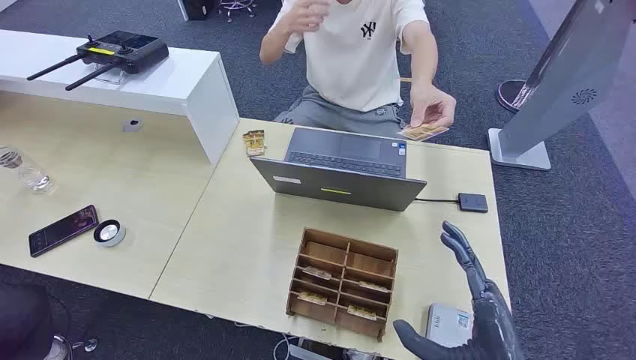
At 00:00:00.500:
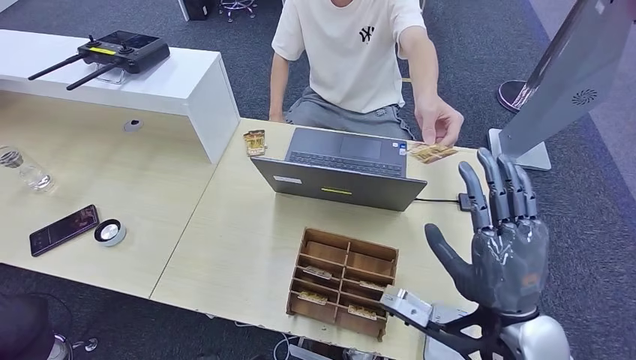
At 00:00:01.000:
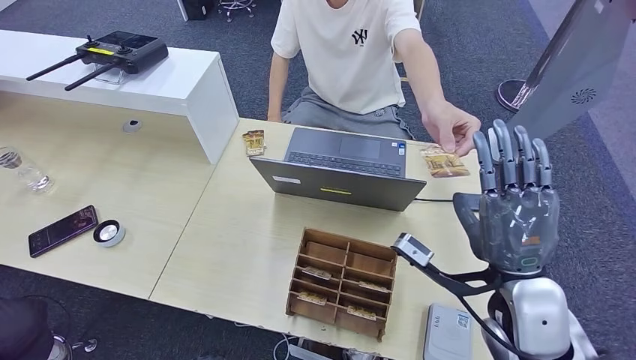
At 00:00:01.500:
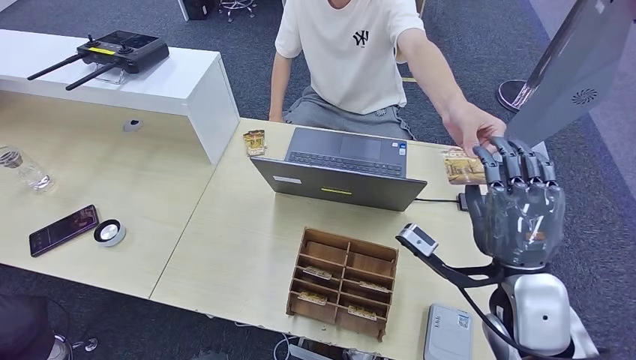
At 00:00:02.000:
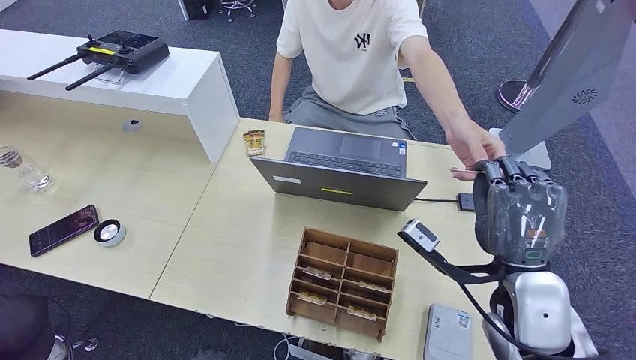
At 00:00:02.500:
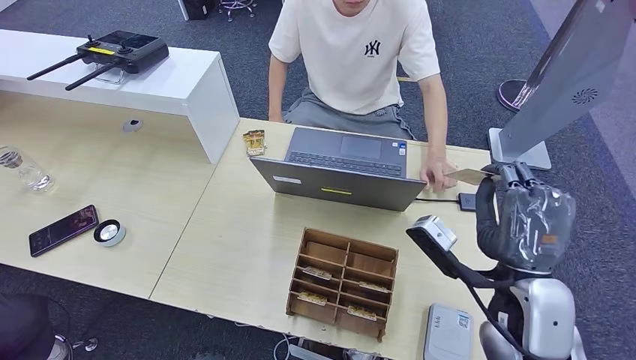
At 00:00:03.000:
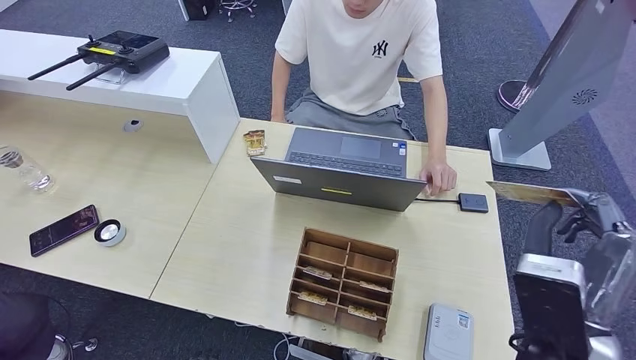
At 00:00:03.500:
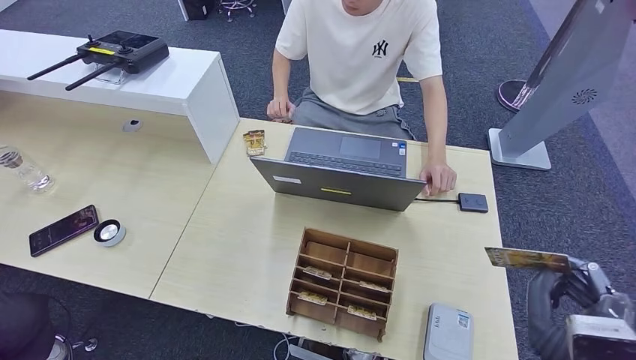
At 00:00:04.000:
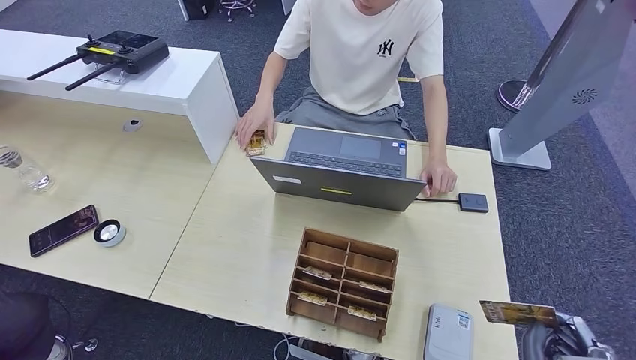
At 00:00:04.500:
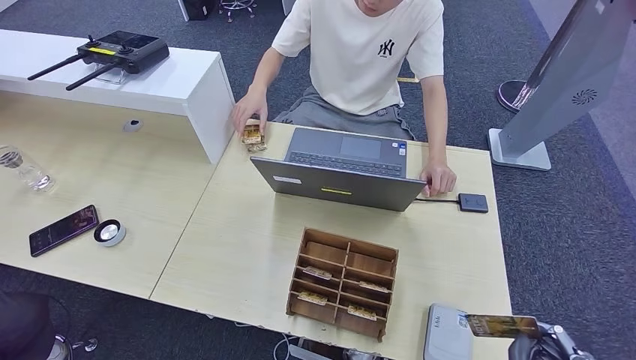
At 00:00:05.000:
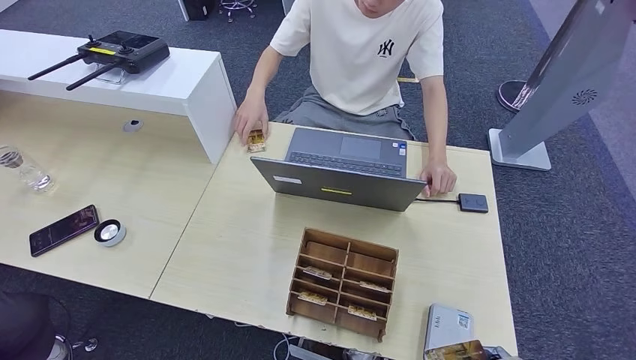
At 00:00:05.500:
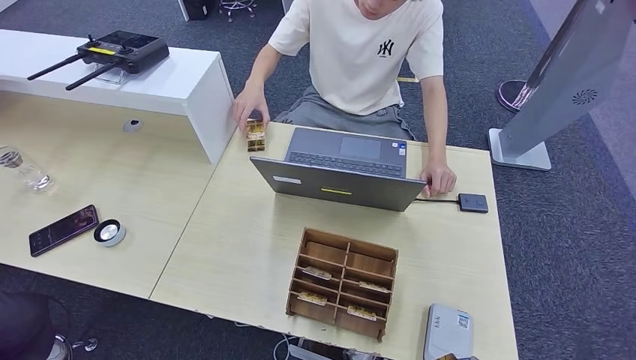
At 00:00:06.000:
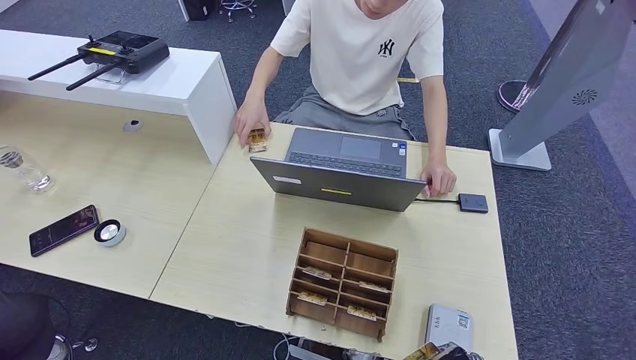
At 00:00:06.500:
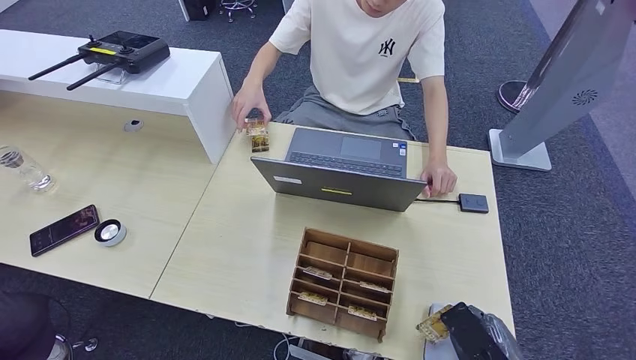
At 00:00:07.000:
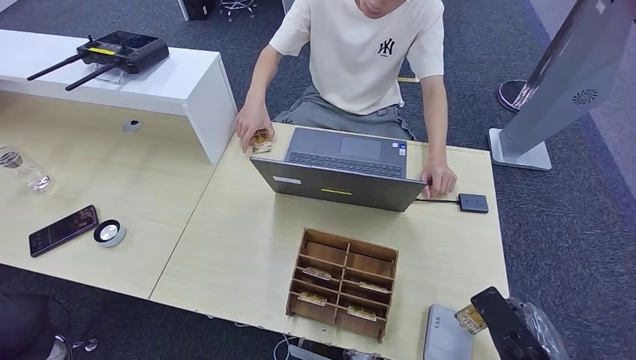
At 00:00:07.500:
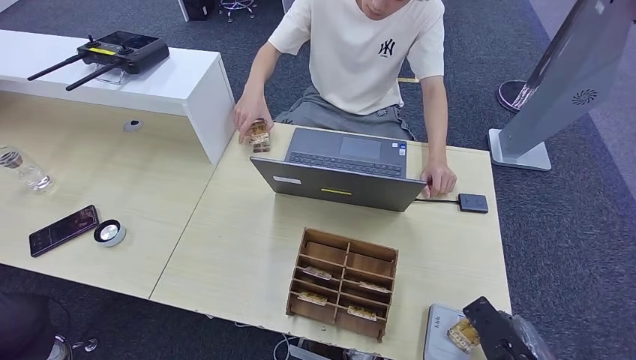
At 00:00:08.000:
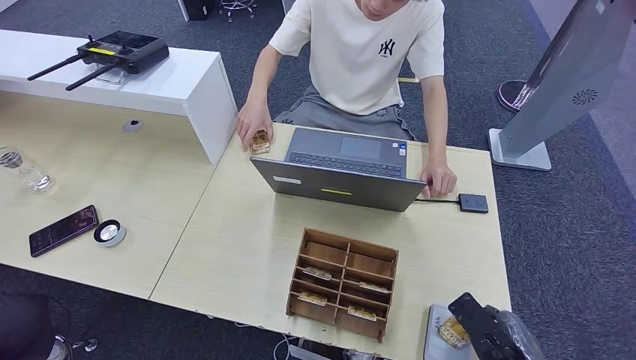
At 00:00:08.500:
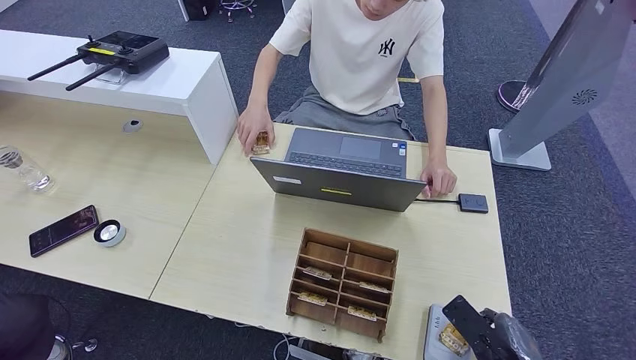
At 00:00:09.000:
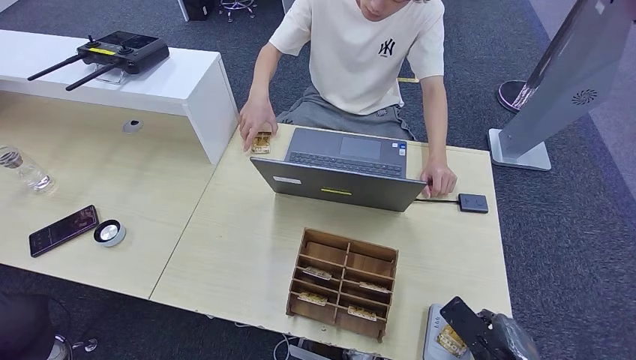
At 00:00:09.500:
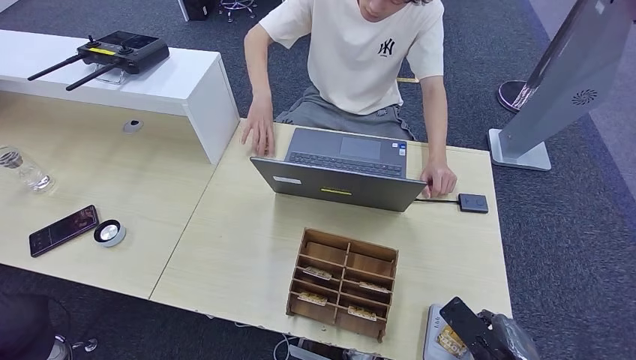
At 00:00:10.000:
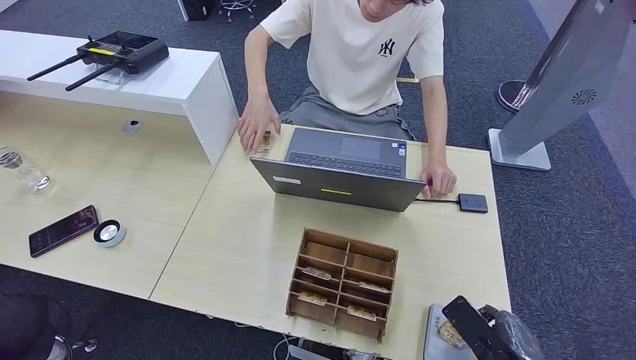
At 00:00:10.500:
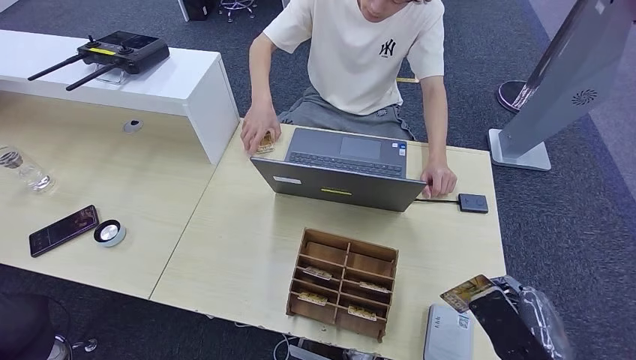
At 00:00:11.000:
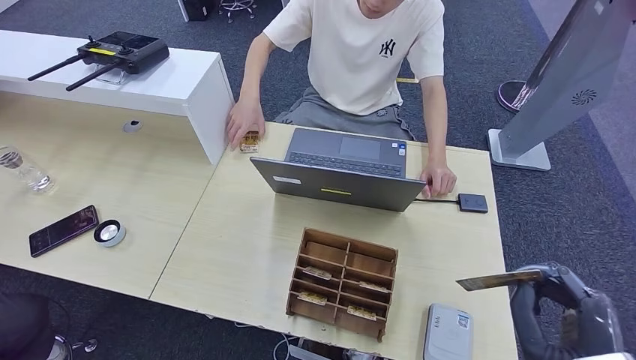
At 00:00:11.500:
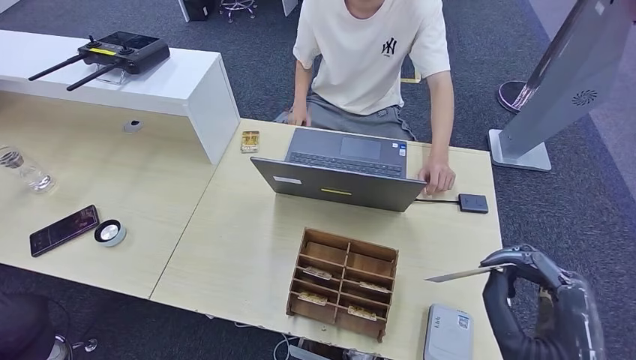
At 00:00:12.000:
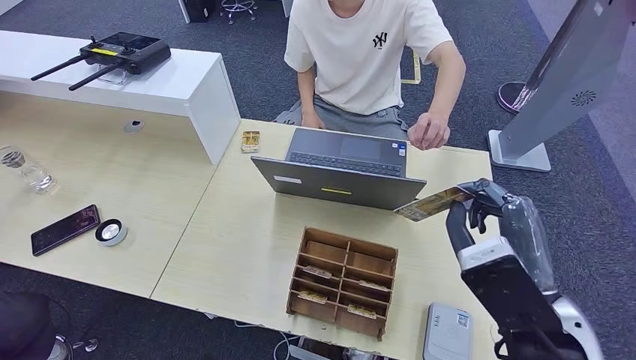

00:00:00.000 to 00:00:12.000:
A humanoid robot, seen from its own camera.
Step, 00:00:00.000 to 00:00:02.500: Take the ID card from the person's hand.
Step, 00:00:03.000 to 00:00:09.000: Place the ID card on the card reader.
00:00:02.000 to 00:00:04.000: The right hand is displaced backward by approximately 20 cm. The left hand moves backward, roughly 5 cm.
00:00:04.000 to 00:00:06.000: The right hand shifts approximately 5 cm downward.
00:00:06.000 to 00:00:08.000: The right hand moves forward, some 10 cm.
00:00:08.000 to 00:00:10.000: The hands move only a little.
00:00:10.000 to 00:00:12.000: The right hand goes about 20 cm upward and to the left.

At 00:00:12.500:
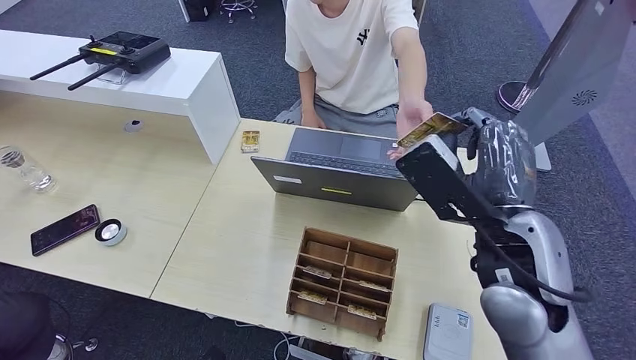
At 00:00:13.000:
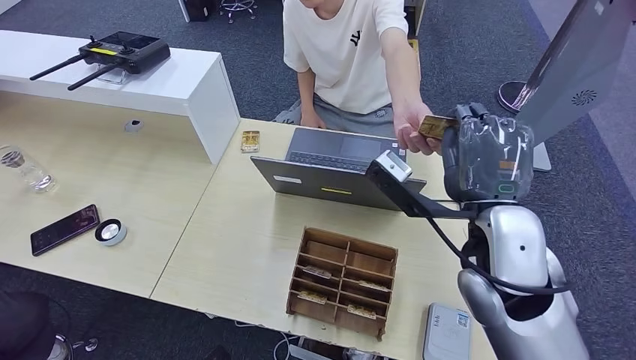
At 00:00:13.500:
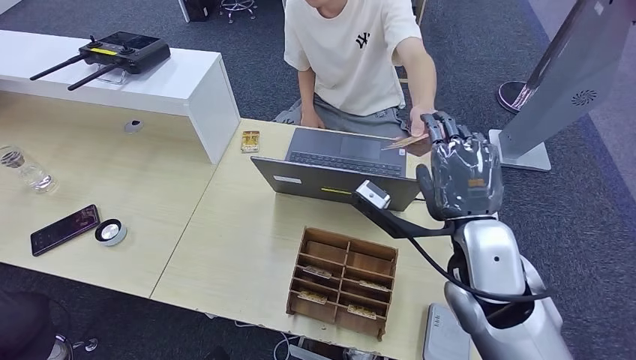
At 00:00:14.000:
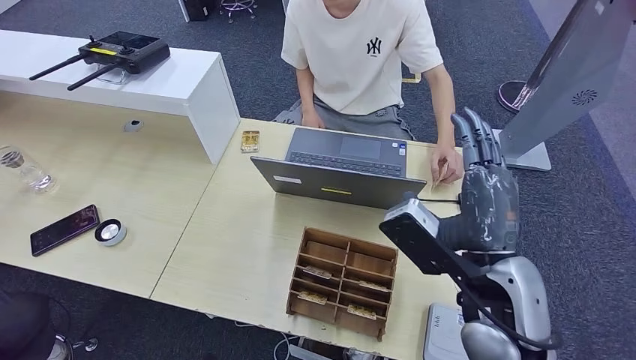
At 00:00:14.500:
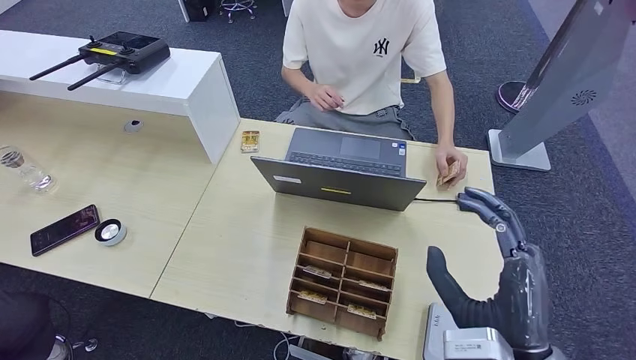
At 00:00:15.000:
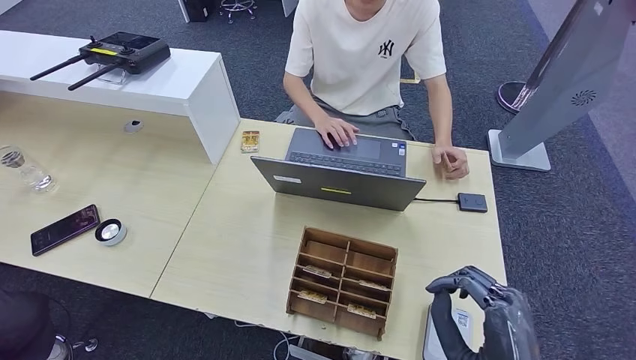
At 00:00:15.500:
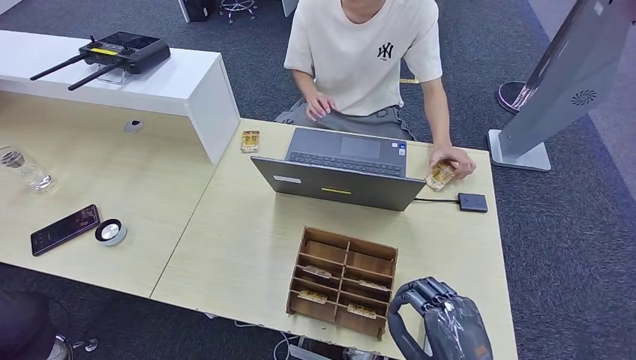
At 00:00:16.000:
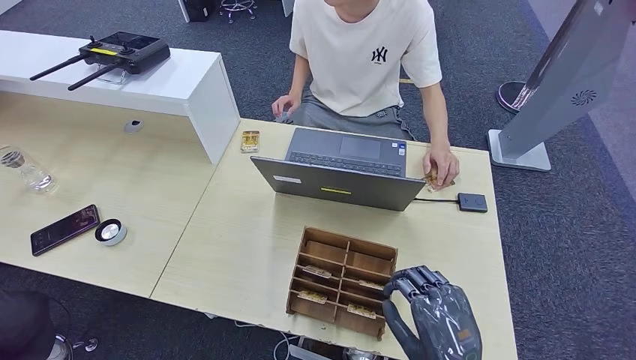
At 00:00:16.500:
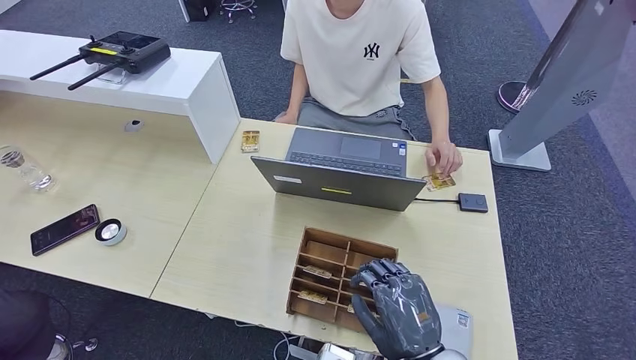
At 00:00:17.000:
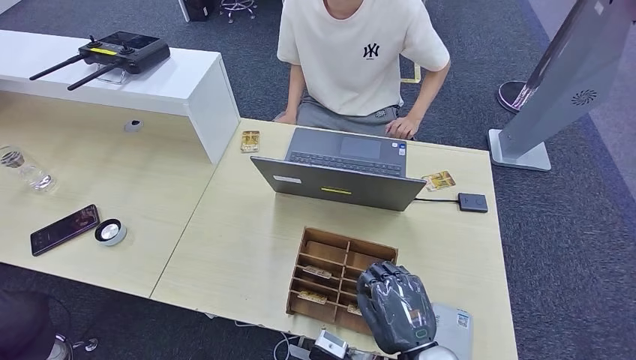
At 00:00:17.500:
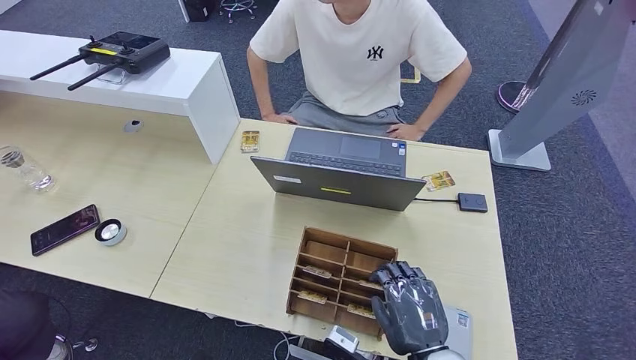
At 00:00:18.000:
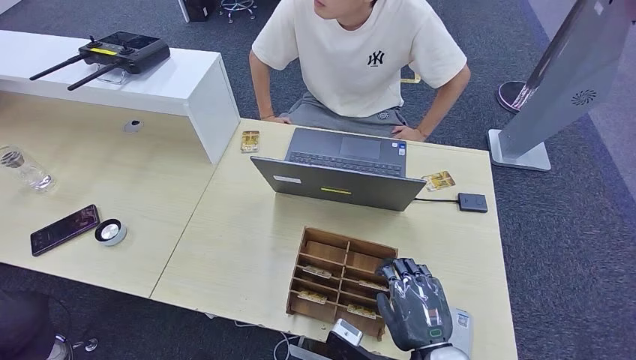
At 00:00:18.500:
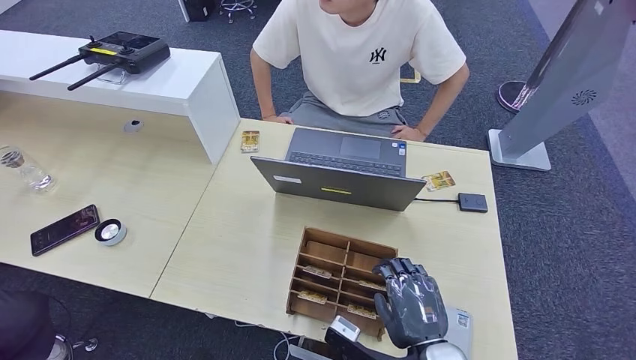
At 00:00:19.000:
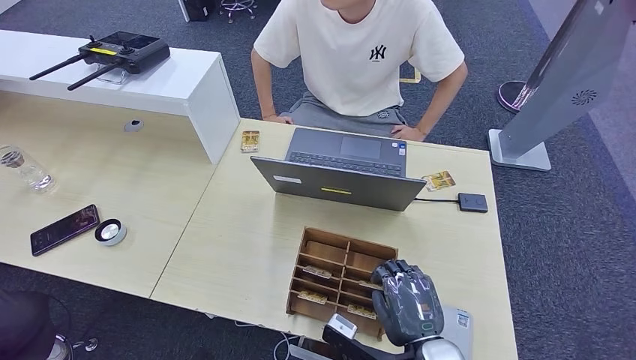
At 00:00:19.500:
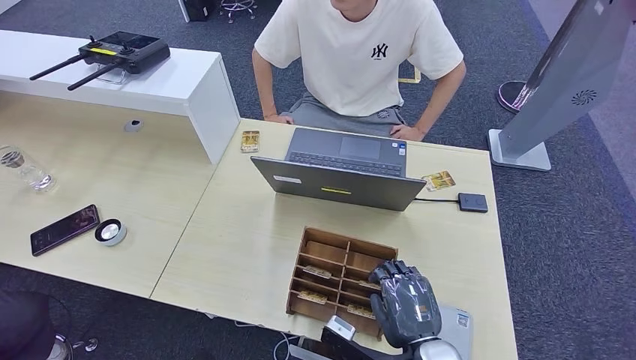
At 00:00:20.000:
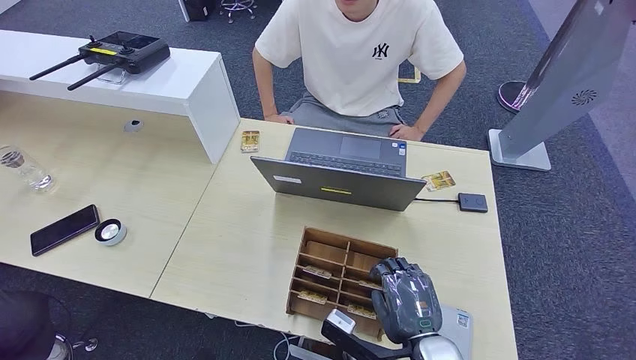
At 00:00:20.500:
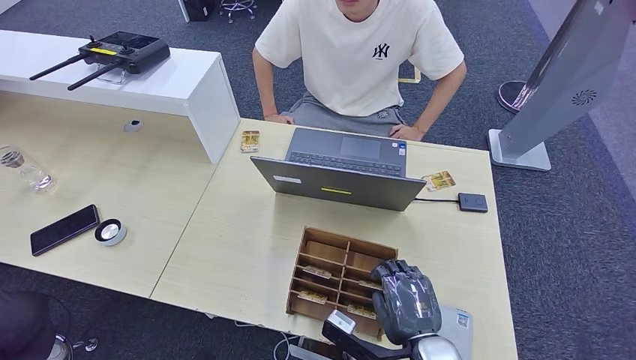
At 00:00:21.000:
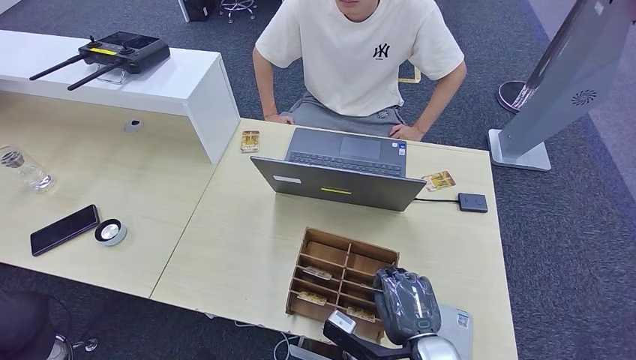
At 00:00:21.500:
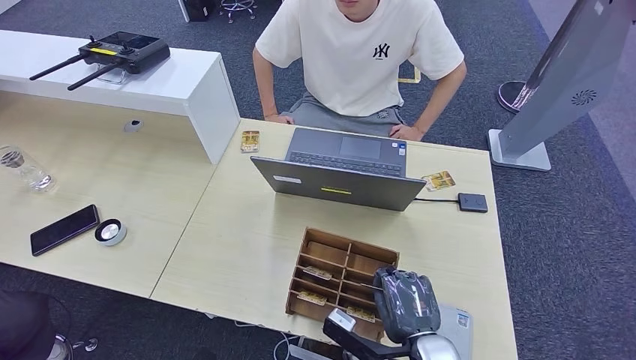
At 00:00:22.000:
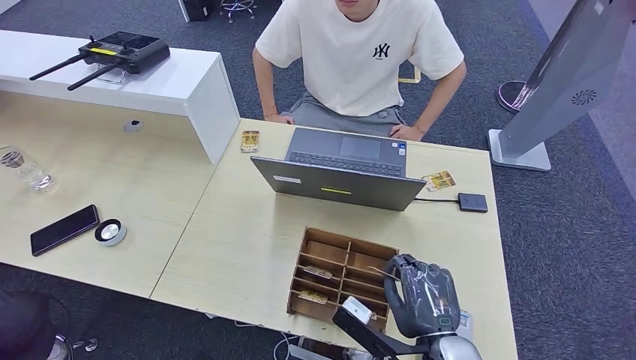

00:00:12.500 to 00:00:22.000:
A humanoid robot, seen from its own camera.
00:00:12.500 to 00:00:14.500: The right hand heads backward and downward, covering approximately 15 cm.
00:00:14.500 to 00:00:16.500: The right hand moves downward, roughly 10 cm.
00:00:16.500 to 00:00:20.000: The hands move only a little.
00:00:20.000 to 00:00:22.000: The hands move only a little.
